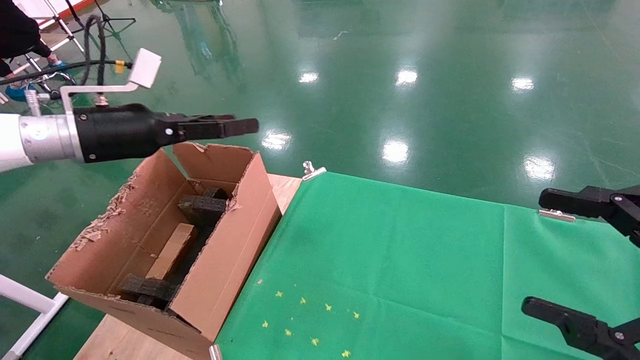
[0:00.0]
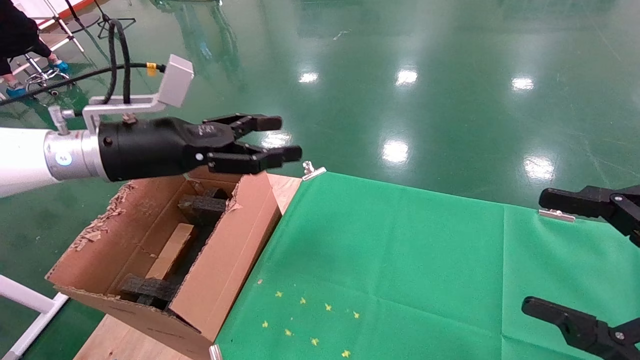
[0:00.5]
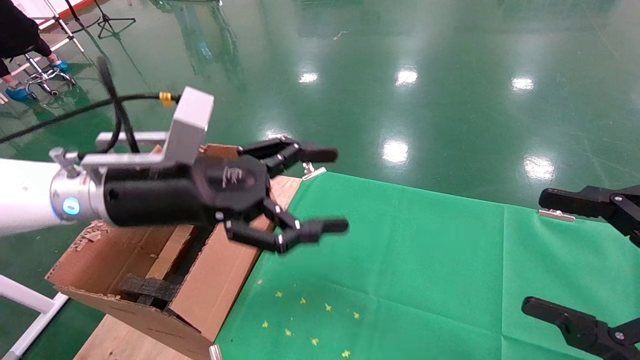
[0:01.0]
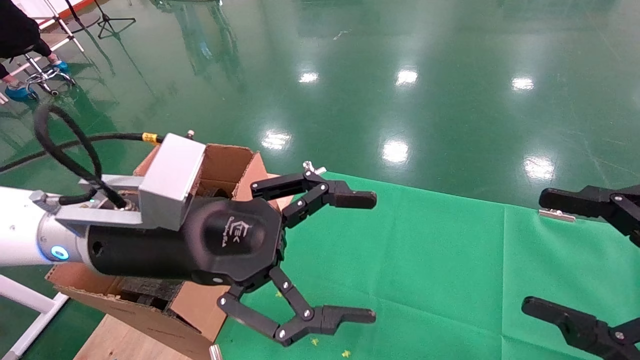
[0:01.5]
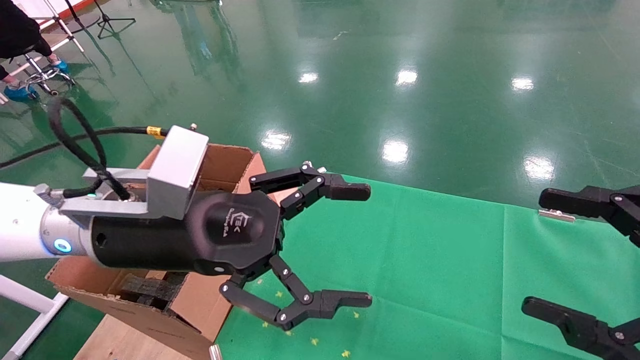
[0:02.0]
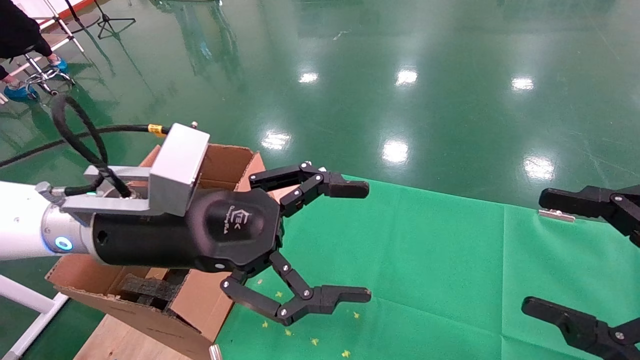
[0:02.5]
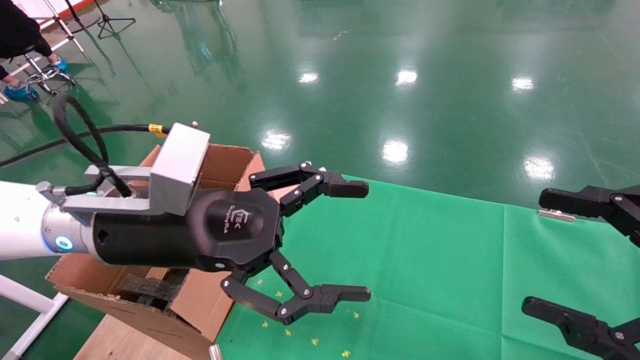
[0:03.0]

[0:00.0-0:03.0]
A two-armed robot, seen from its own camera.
Task of the whole recording: using a robotic arm to pick up a cardboard box and palace it the carton.
0:00.0 to 0:01.5: The left gripper heads to the right and backward, covering about 20 cm.
0:01.5 to 0:03.0: The two grippers keep their place.
